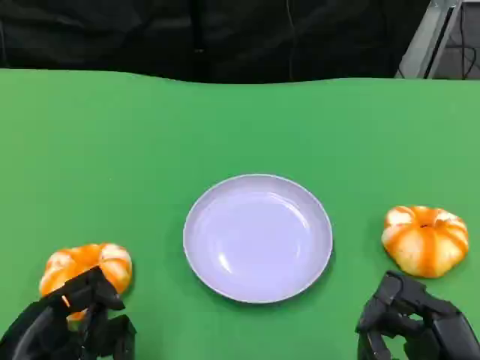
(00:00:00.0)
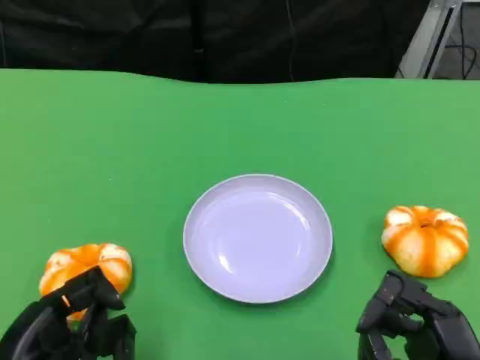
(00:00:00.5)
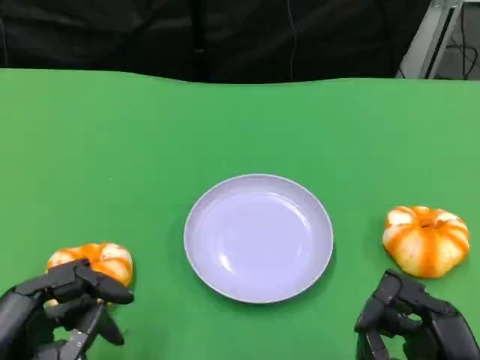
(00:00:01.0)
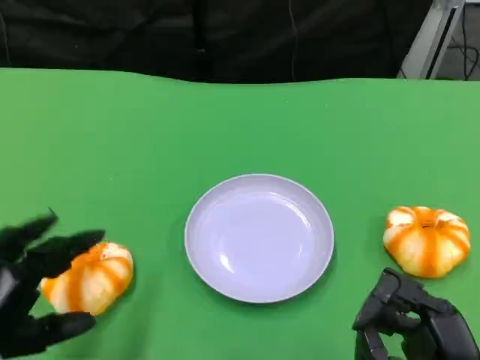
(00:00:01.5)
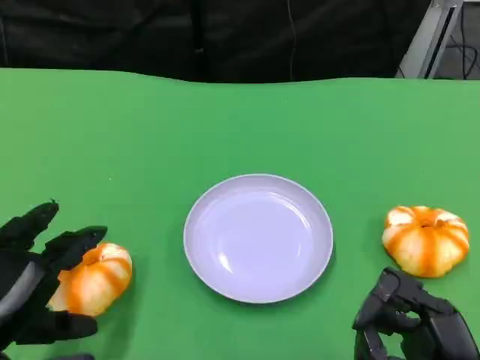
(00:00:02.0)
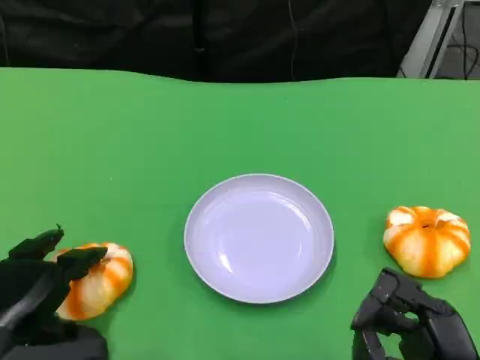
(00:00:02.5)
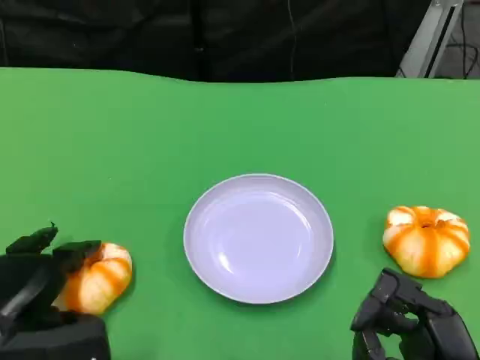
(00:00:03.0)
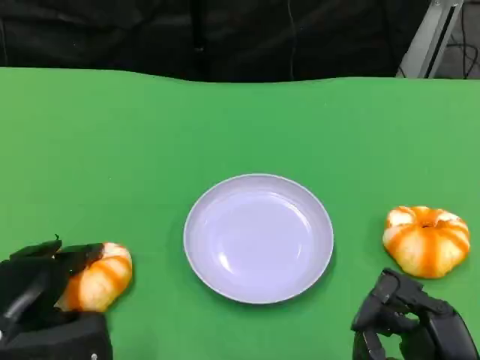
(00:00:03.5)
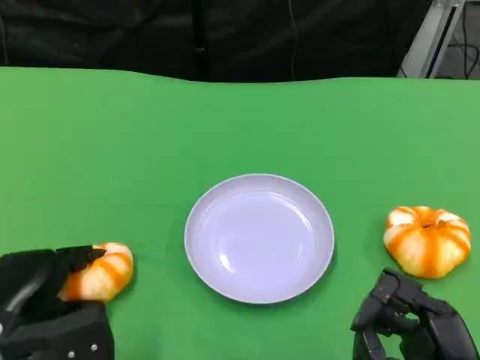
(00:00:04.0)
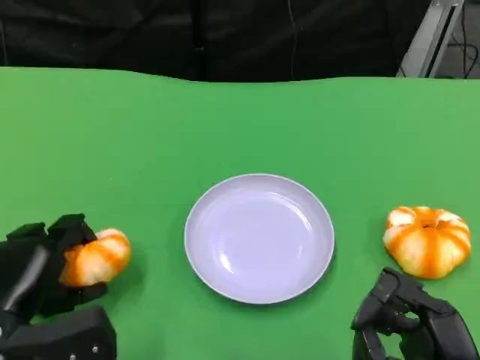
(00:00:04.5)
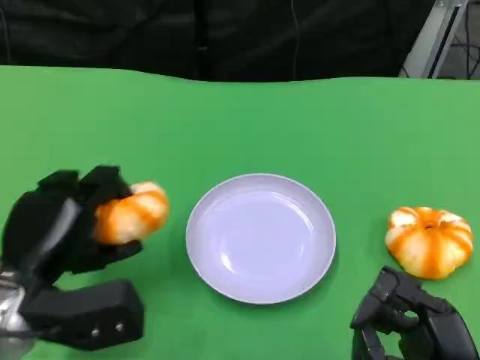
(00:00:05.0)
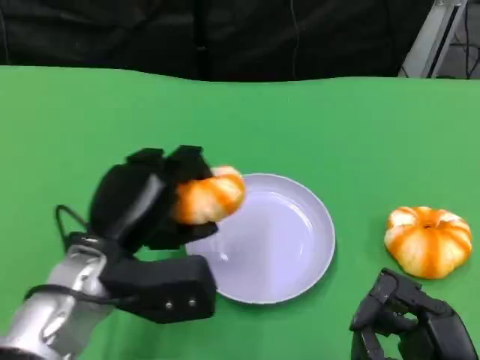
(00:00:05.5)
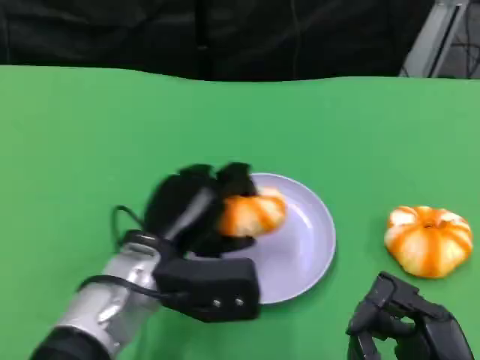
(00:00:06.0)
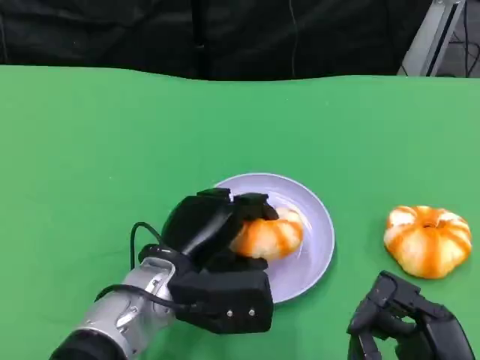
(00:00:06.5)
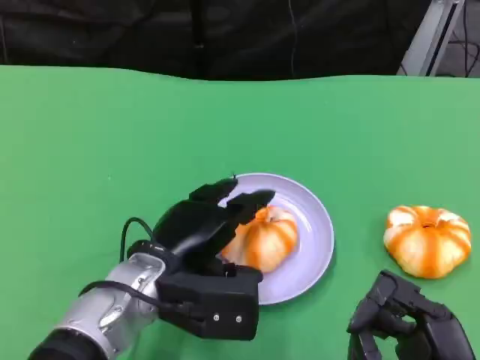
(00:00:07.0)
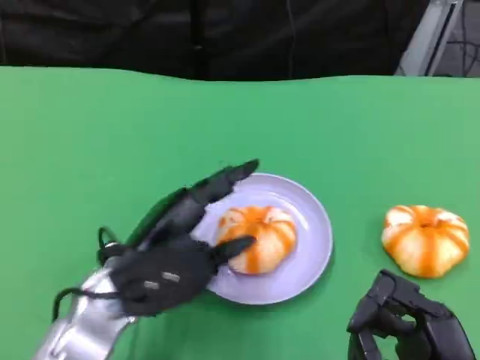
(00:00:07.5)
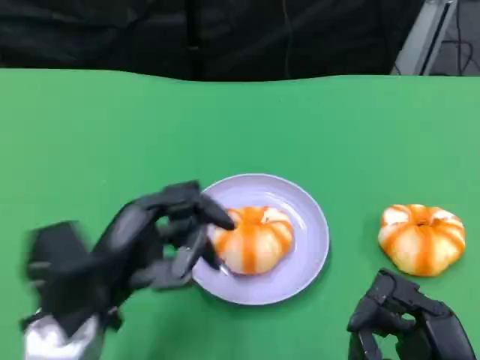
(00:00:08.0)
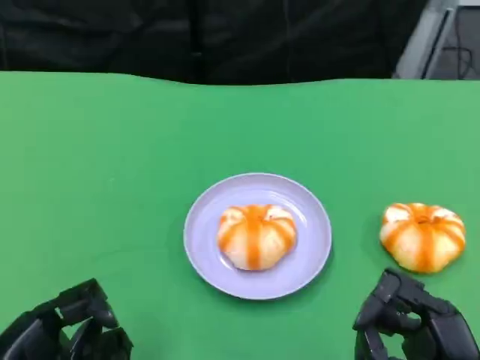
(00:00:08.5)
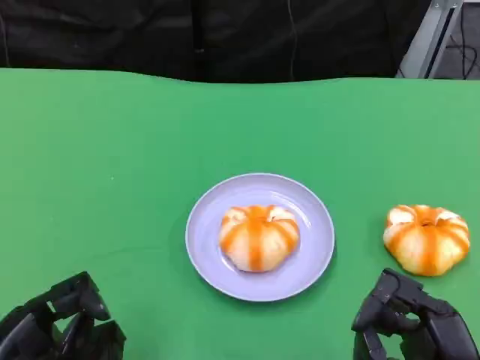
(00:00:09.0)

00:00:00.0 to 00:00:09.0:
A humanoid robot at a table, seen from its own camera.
Task of the whole recording: Grasp the bread from the table and place it into the plate.
00:00:02.0 to 00:00:04.5: The left hand moves approximately 5 cm.
00:00:04.5 to 00:00:07.0: The left hand is displaced to the right by about 15 cm.
00:00:07.0 to 00:00:09.0: The left hand is displaced to the left and backward by about 20 cm.

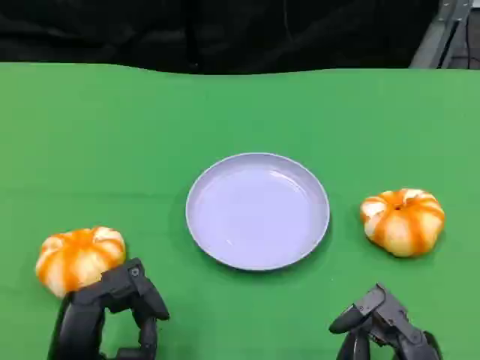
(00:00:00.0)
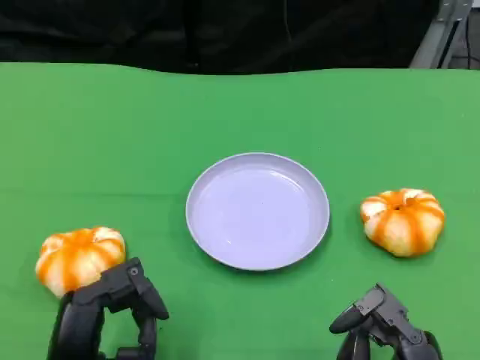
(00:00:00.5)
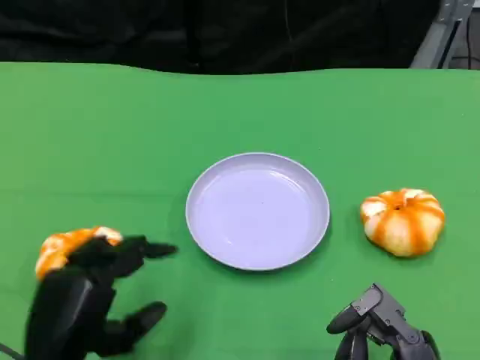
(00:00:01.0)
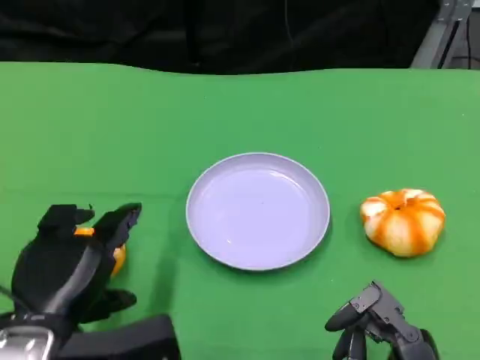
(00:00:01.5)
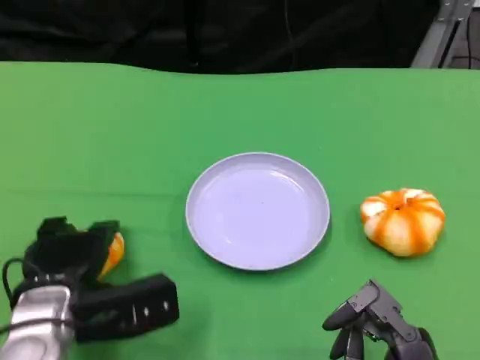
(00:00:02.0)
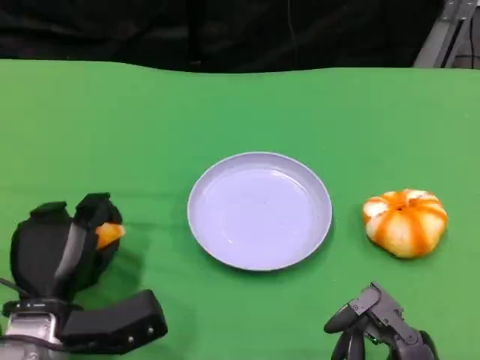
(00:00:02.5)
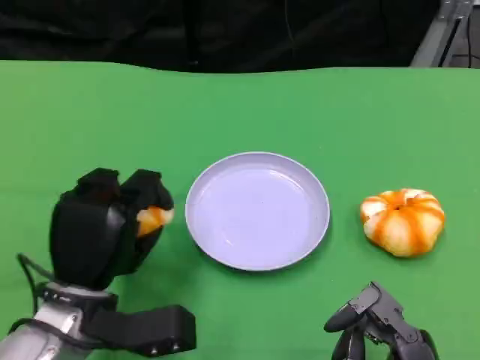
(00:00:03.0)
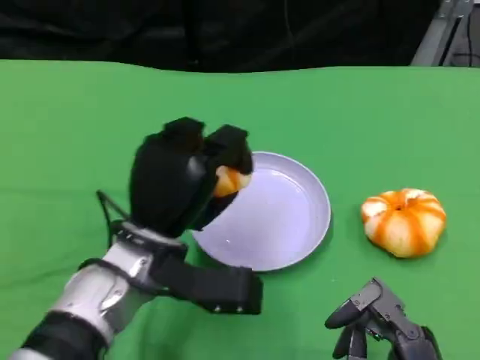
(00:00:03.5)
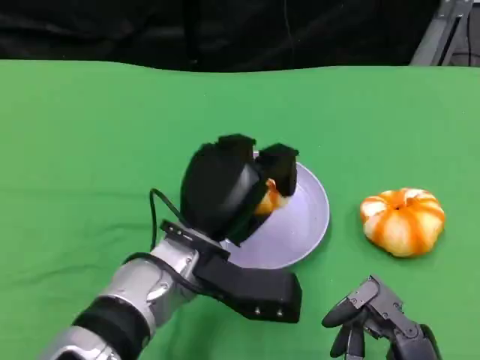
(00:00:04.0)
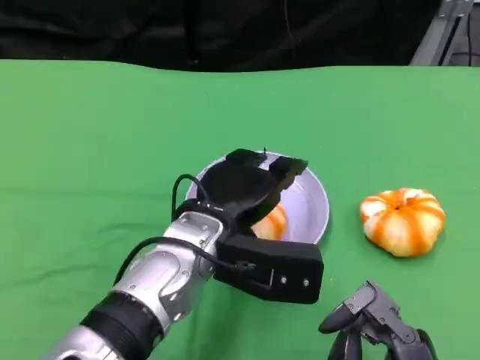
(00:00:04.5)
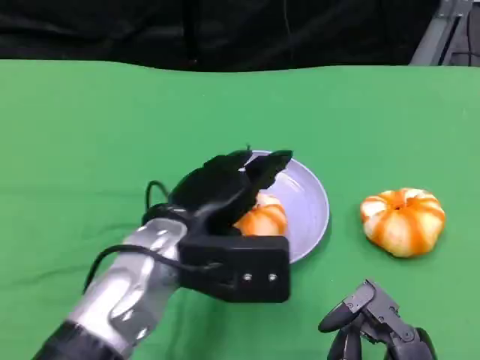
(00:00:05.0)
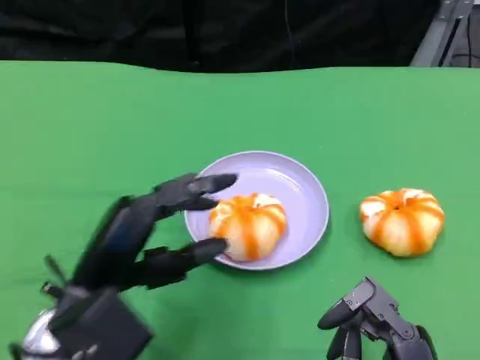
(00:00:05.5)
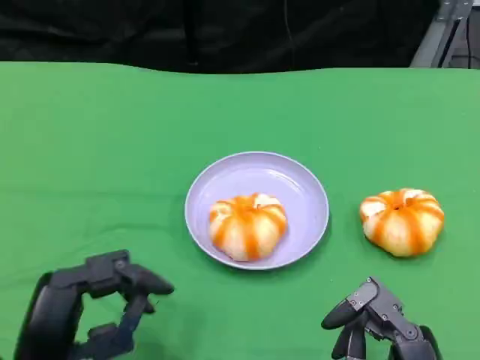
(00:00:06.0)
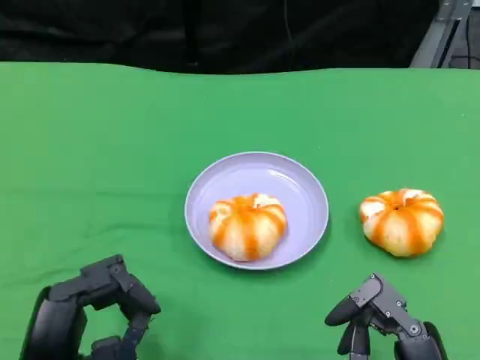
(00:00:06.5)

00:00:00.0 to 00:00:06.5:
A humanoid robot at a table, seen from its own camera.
Task of the whole recording: Grasp the bread from the table and place it into the plate.
00:00:00.0 to 00:00:02.0: The left hand goes roughly 10 cm forward.
00:00:02.0 to 00:00:04.5: The left hand shifts approximately 15 cm to the right and upward.
00:00:04.5 to 00:00:06.5: The left hand moves to the left and backward, approximately 20 cm.

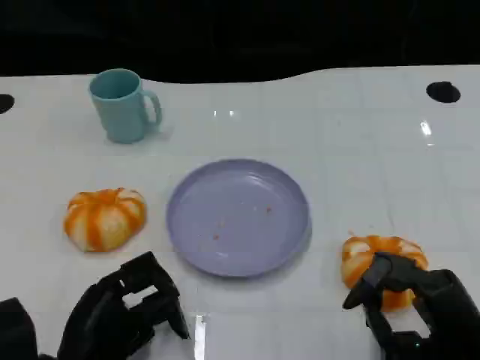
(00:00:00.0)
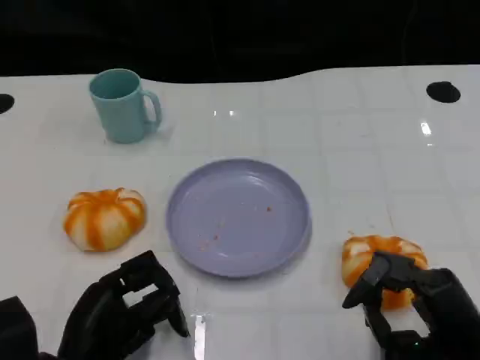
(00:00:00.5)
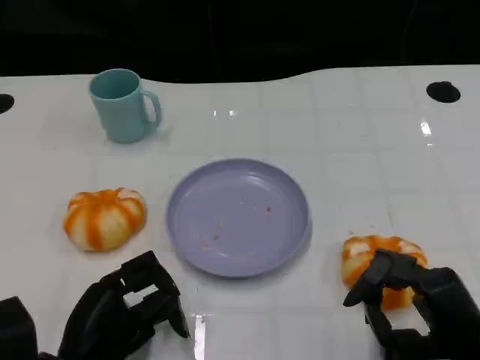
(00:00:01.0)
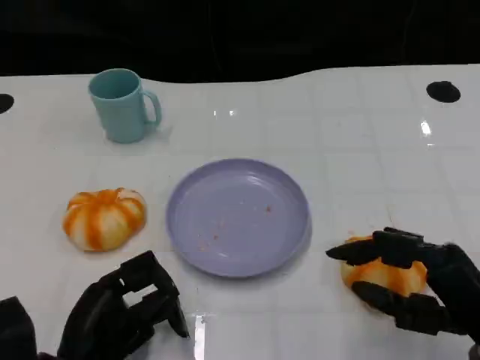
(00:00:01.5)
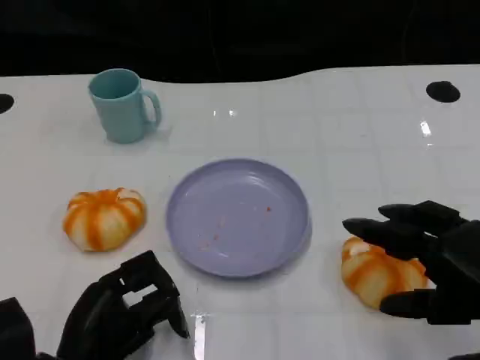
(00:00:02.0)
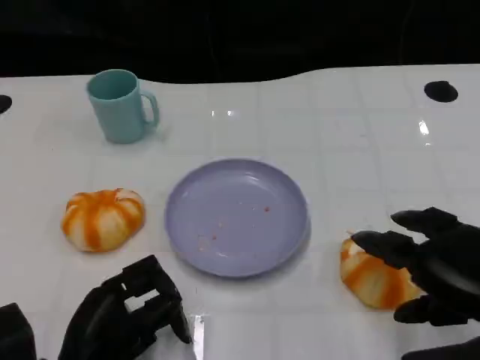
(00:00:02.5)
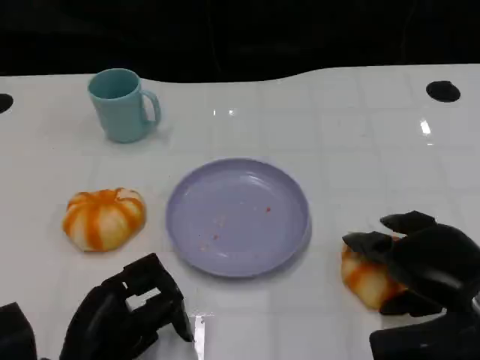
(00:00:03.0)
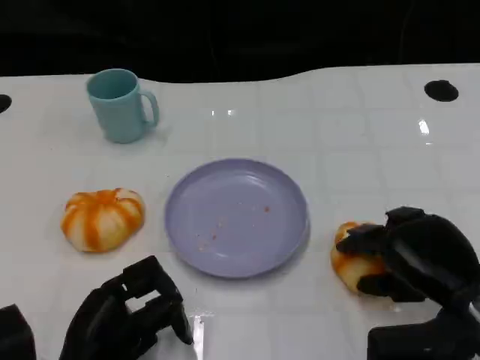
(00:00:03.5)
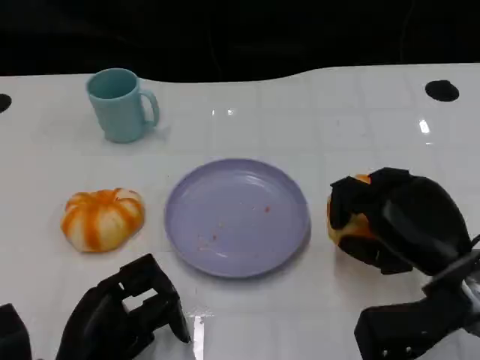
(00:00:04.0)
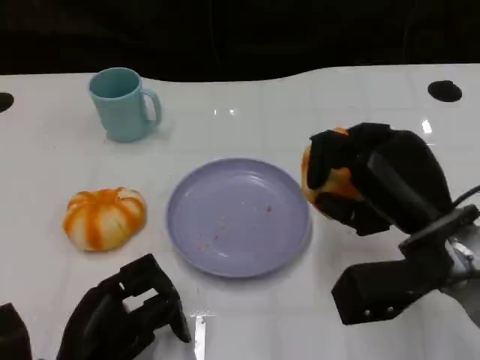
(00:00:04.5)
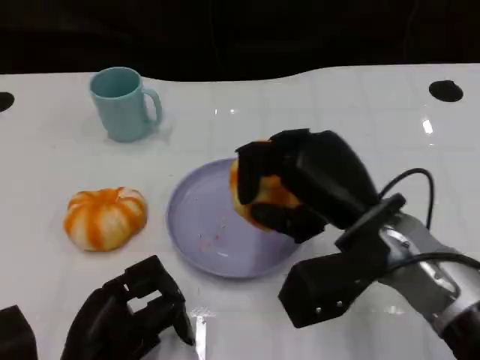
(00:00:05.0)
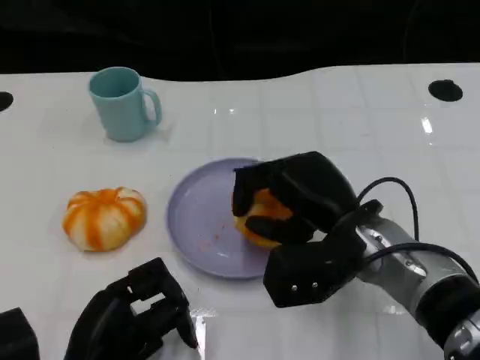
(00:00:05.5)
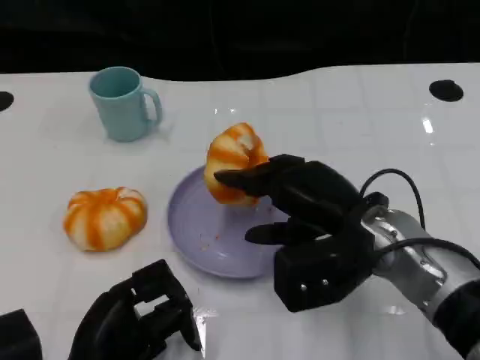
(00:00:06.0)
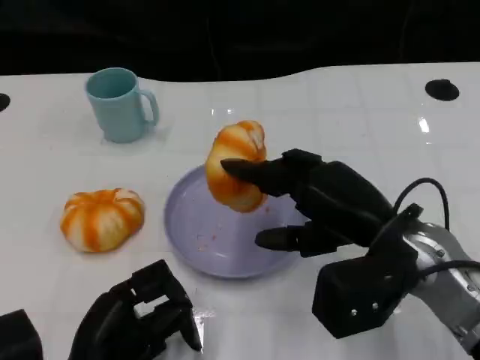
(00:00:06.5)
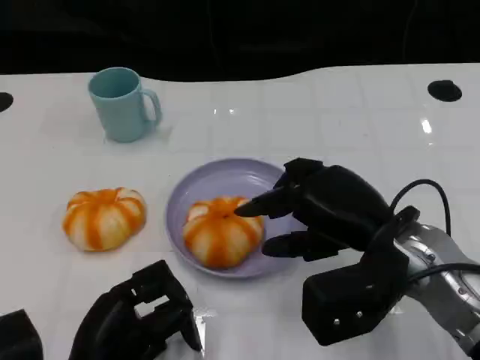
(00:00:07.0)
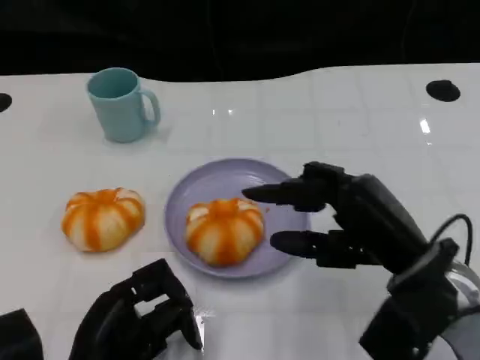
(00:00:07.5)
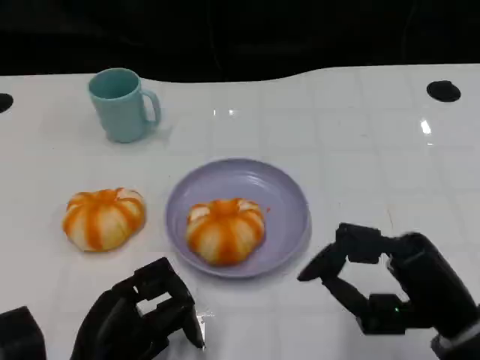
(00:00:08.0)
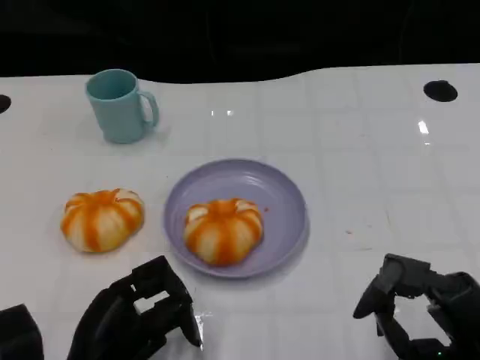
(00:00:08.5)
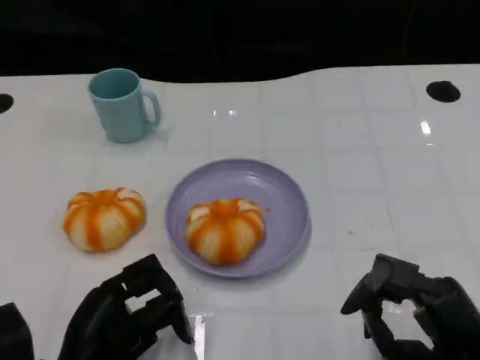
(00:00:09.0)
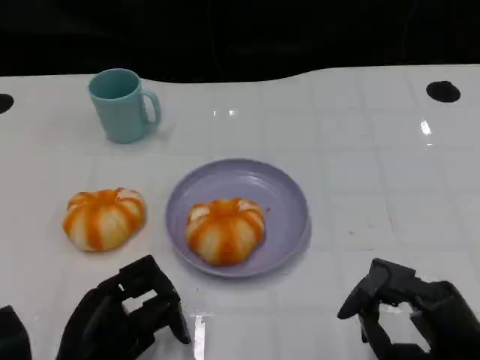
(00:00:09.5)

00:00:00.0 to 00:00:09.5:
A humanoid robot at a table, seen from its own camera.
Task of the whole recording: Grasp the bread from the table and place it into the plate.
00:00:00.0 to 00:00:02.0: The right hand shifts roughly 10 cm upward.
00:00:02.0 to 00:00:04.0: The right hand moves forward and to the left, some 10 cm.
00:00:04.0 to 00:00:05.5: The right hand goes about 10 cm to the left.
00:00:05.5 to 00:00:07.5: The right hand goes roughly 10 cm to the right and backward.
00:00:07.5 to 00:00:09.5: The right hand is displaced backward and downward by about 10 cm.
